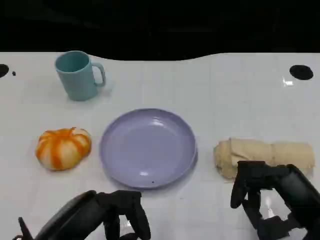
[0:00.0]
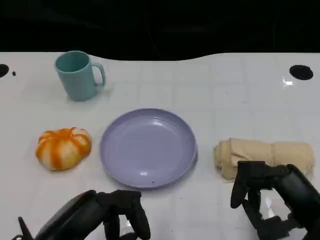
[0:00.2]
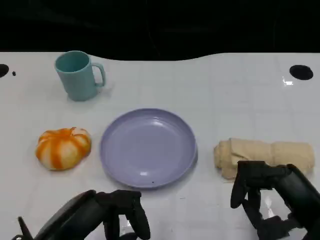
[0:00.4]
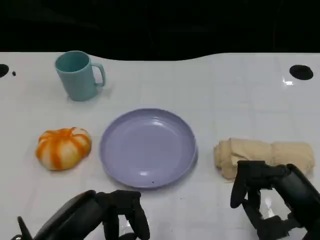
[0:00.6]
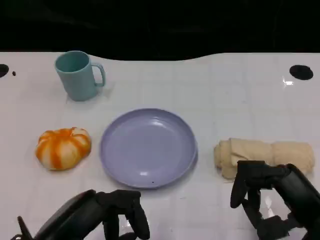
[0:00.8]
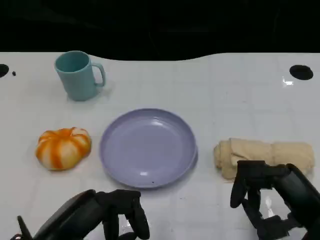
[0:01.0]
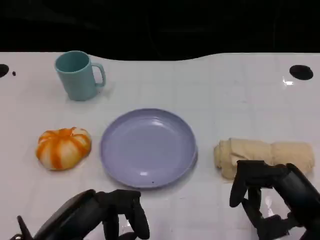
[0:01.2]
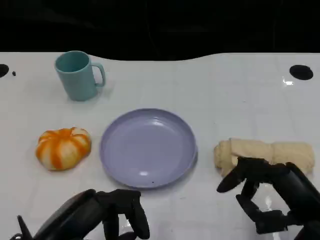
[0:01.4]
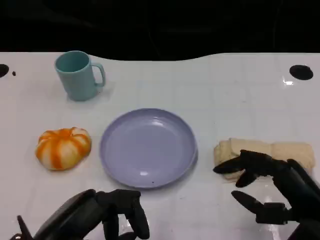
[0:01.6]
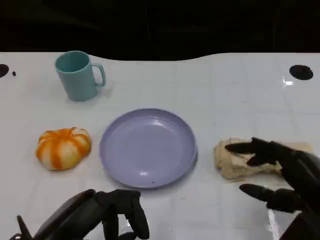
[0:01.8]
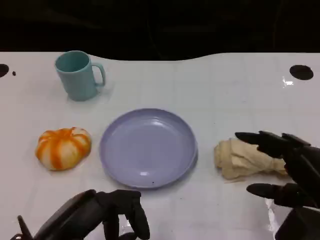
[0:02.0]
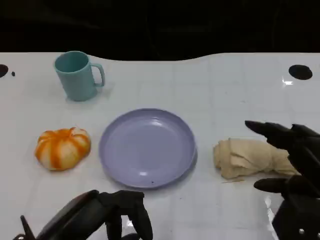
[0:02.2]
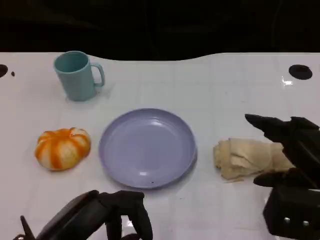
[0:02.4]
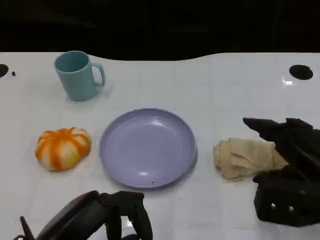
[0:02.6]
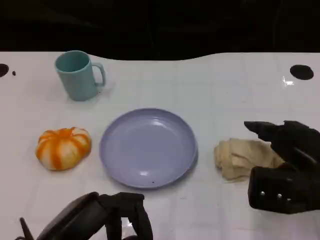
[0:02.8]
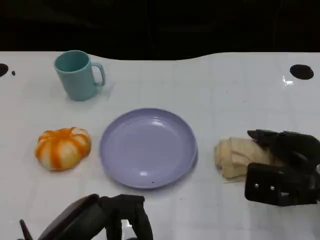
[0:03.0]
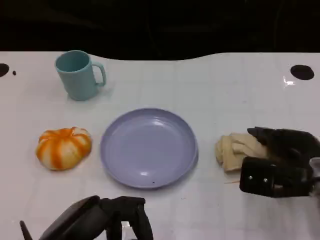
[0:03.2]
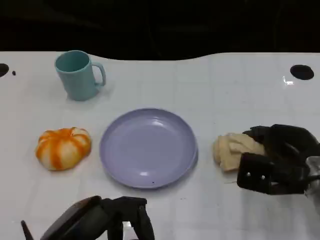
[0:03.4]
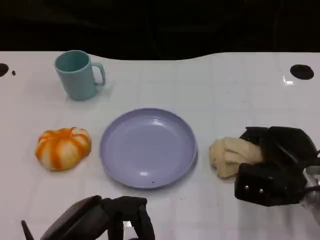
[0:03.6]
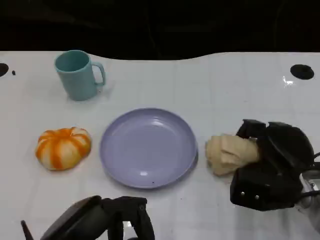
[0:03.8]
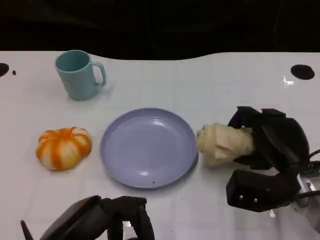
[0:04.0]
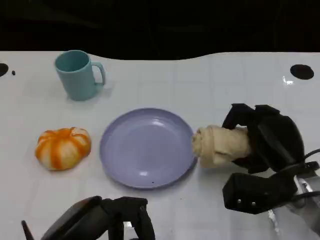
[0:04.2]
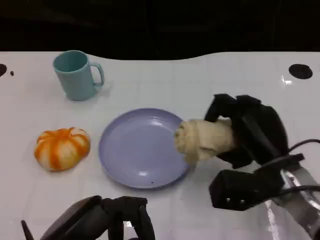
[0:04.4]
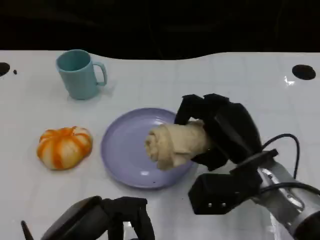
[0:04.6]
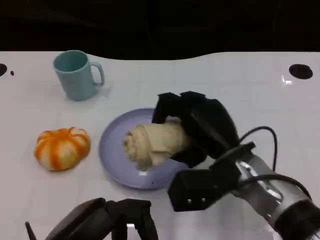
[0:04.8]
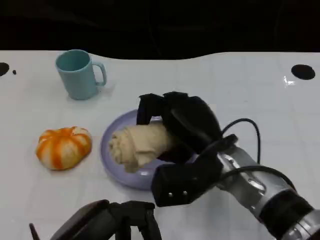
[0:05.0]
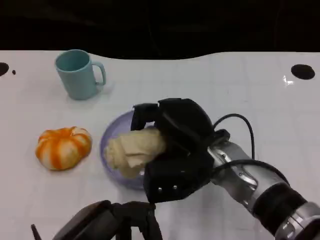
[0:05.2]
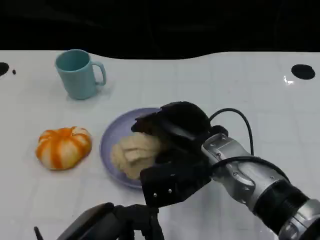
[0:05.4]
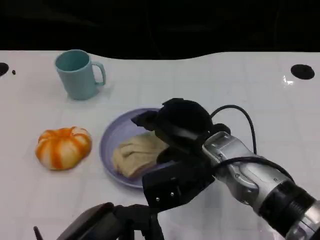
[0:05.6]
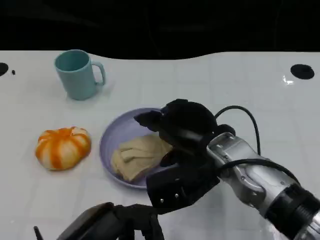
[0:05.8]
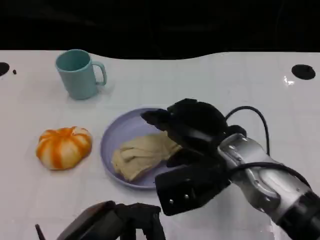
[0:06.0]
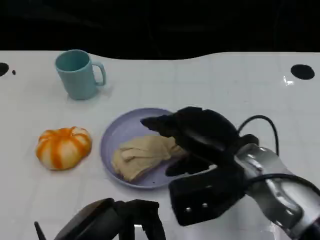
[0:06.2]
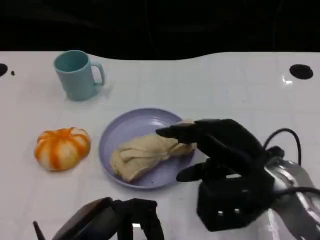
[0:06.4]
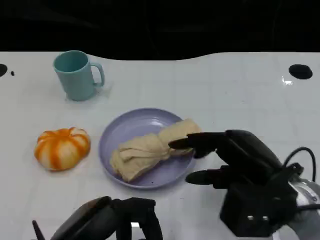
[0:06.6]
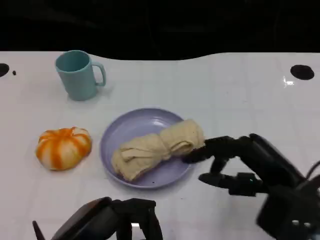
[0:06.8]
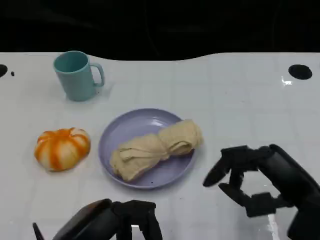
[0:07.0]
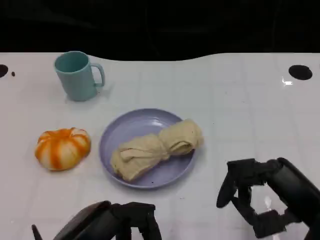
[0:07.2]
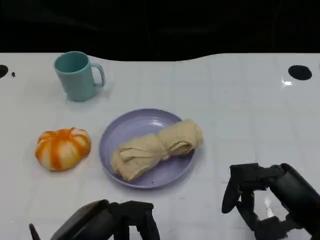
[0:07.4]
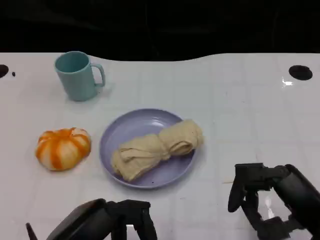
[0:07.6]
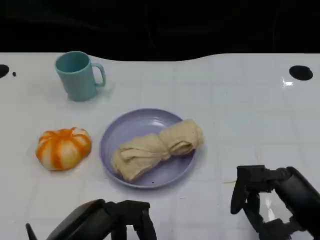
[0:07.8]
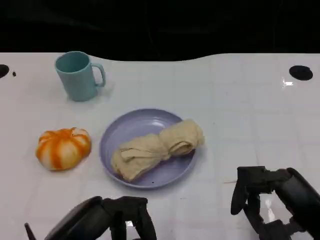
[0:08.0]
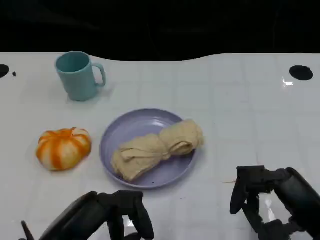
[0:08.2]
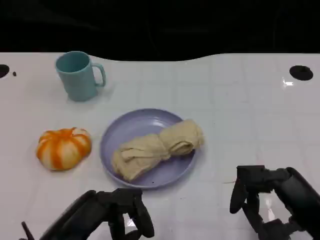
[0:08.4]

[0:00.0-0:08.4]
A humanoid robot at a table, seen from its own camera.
Task of the whole recording: Grasp the towel on the left side of the plate with the left hand and place it into the plate.
0:00.0 to 0:01.4: The hands stay close to where they were, moving slightly.
0:01.4 to 0:02.8: The right hand goes about 10 cm forward.
0:02.8 to 0:04.2: The right hand ends up roughly 5 cm from where it was.
0:04.2 to 0:05.6: The right hand shifts about 15 cm to the left and upward.
0:05.6 to 0:07.0: The right hand travels to the right and backward by approximately 15 cm.
0:07.0 to 0:08.4: The hands move only a little.

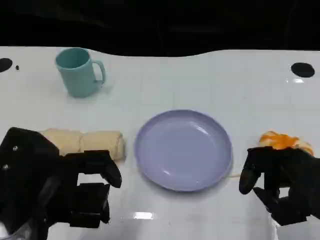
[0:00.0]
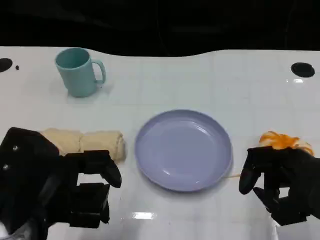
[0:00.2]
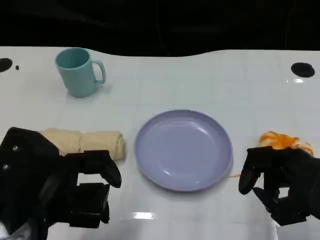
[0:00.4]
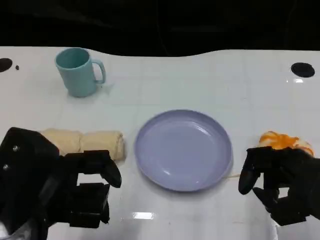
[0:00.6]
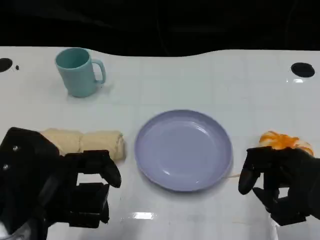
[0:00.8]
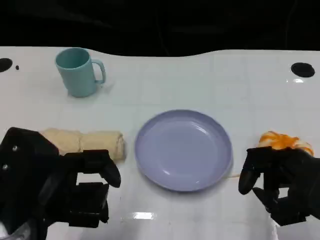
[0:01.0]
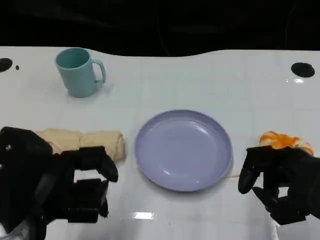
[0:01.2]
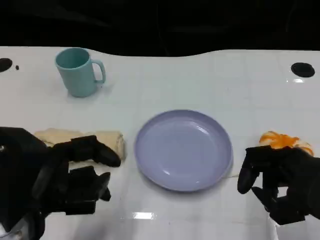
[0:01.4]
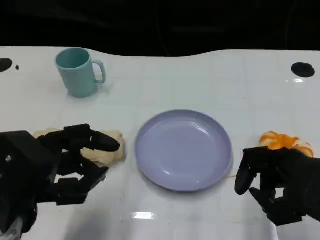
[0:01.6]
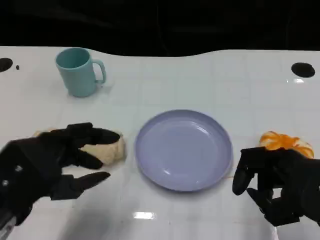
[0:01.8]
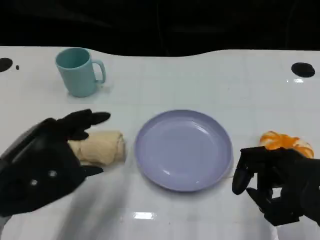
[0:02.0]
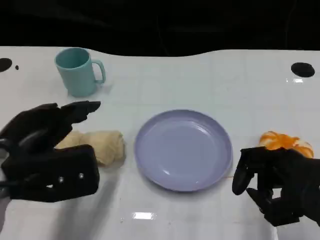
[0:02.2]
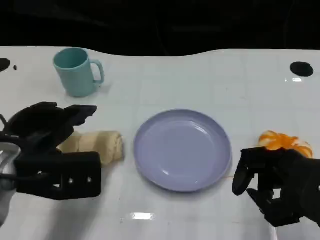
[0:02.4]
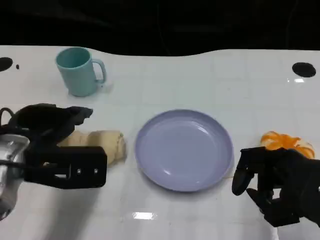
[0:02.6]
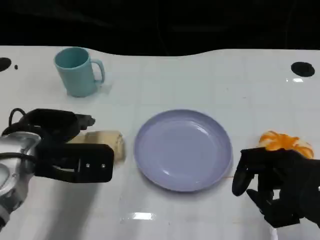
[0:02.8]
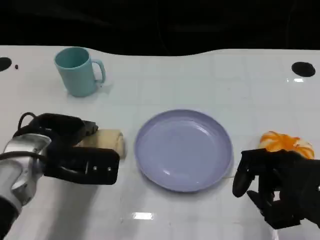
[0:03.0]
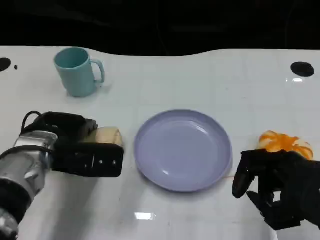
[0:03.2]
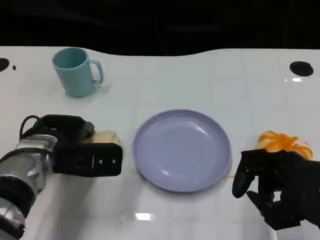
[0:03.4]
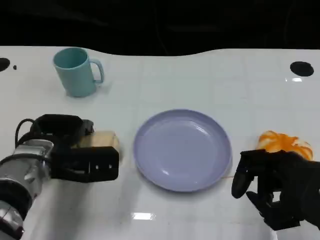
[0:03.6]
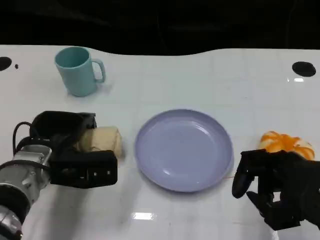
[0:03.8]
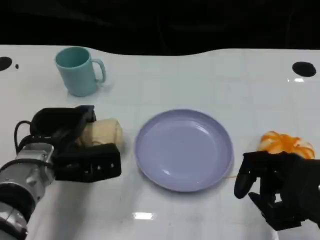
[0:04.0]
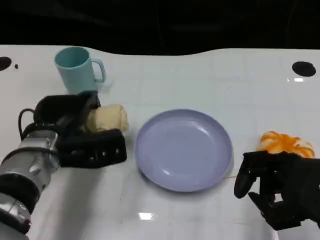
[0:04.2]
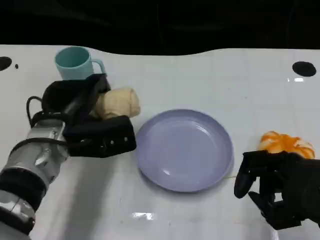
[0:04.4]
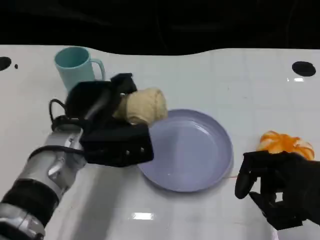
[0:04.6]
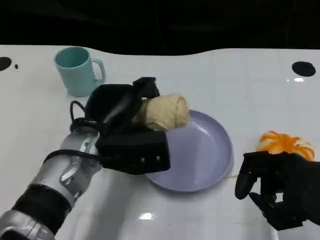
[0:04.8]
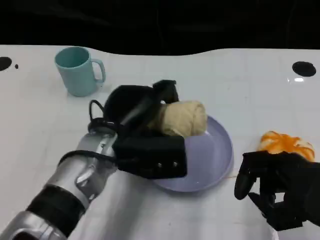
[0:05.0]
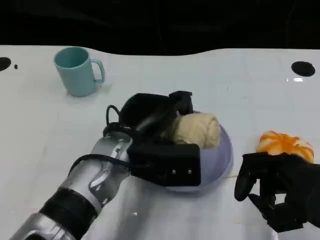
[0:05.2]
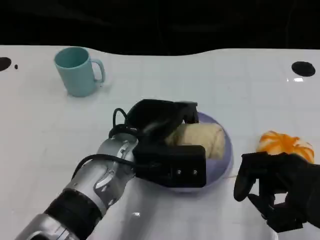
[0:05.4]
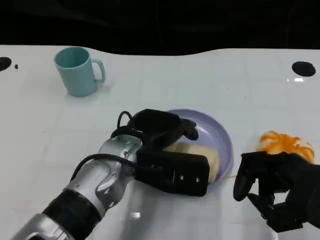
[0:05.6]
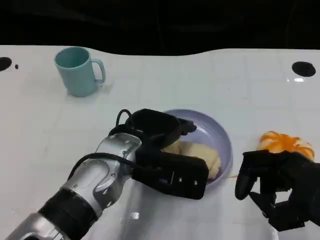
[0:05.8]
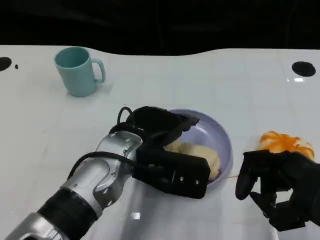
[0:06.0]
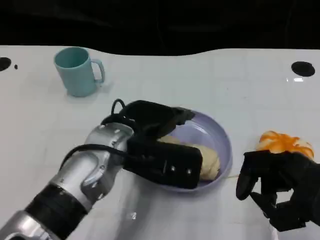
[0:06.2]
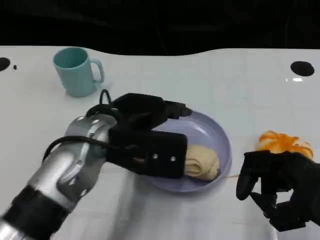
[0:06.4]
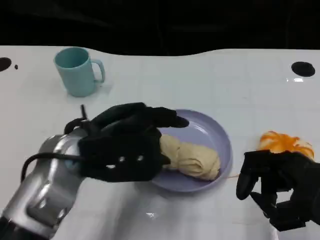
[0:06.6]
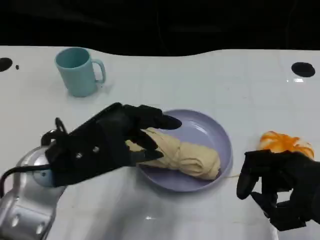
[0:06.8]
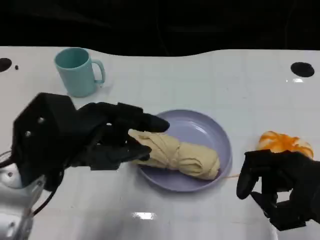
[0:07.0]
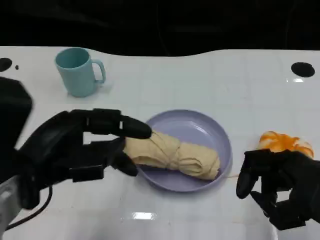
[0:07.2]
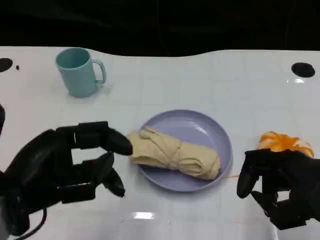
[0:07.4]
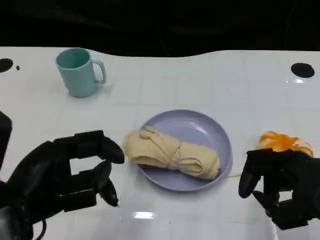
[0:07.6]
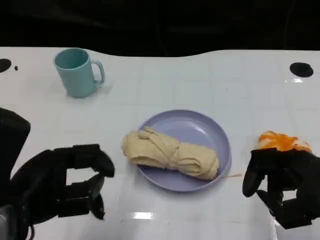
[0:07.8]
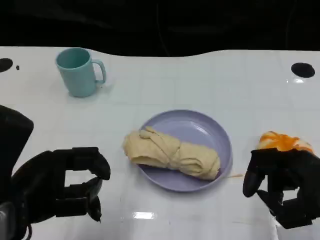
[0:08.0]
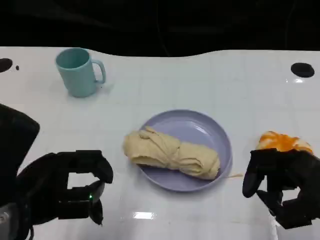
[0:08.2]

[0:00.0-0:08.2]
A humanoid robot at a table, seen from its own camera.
Task of the whole recording: Grasp the towel on the left side of the plate with the left hand and place it into the plate.
0:01.6 to 0:03.2: The left hand travels forward and downward by some 15 cm.
0:03.2 to 0:05.0: The left hand heads to the right, covering about 10 cm.
0:05.0 to 0:06.6: The left hand moves to the left, about 5 cm.
0:06.6 to 0:08.2: The left hand shifts approximately 10 cm to the left and backward.
